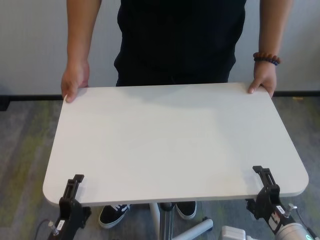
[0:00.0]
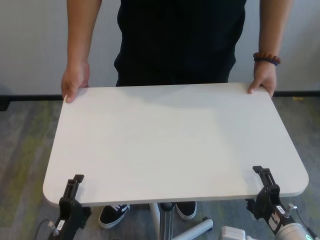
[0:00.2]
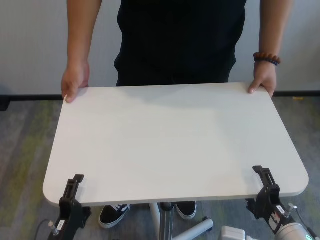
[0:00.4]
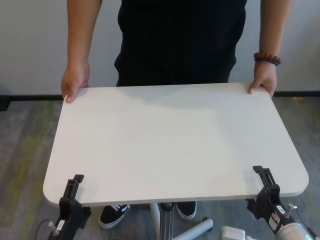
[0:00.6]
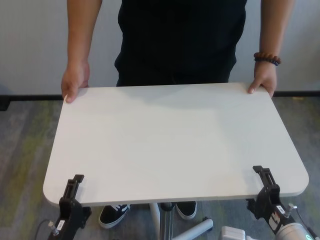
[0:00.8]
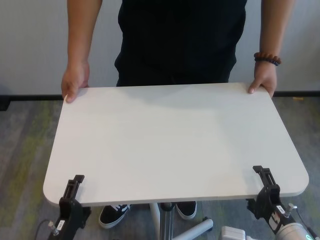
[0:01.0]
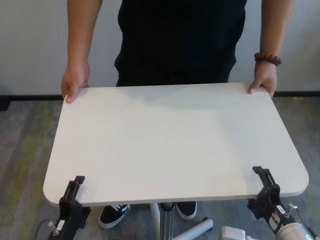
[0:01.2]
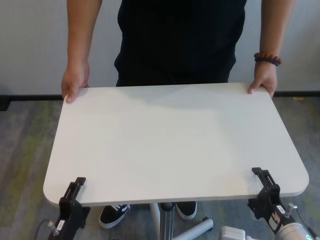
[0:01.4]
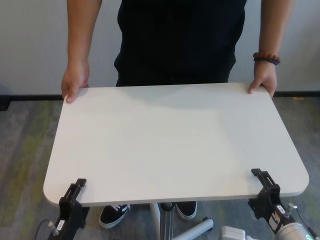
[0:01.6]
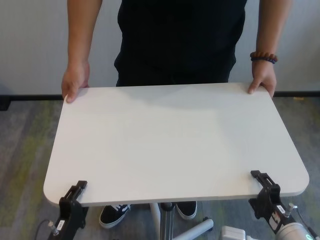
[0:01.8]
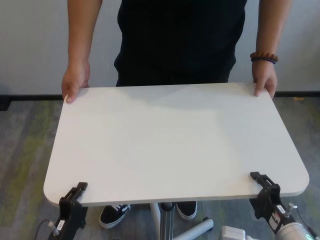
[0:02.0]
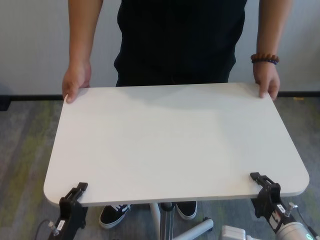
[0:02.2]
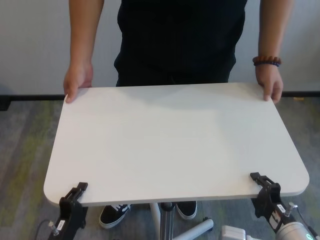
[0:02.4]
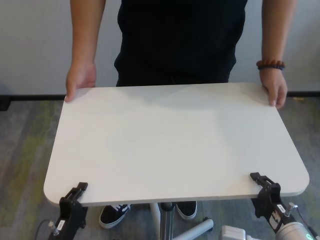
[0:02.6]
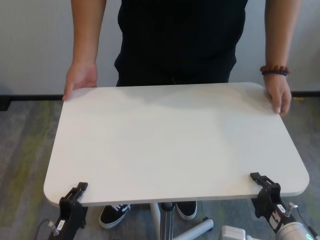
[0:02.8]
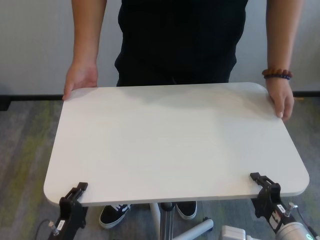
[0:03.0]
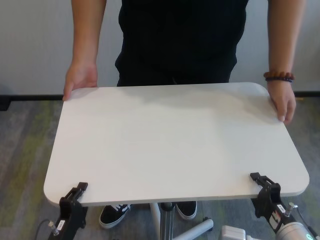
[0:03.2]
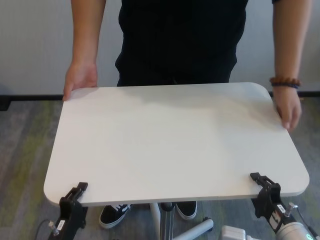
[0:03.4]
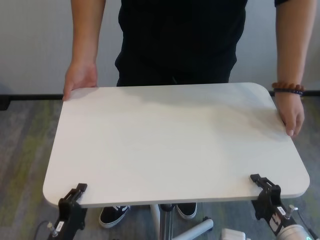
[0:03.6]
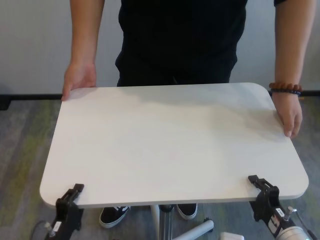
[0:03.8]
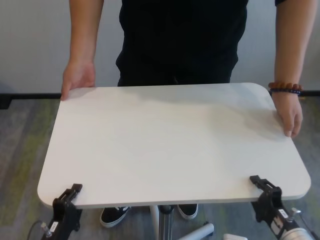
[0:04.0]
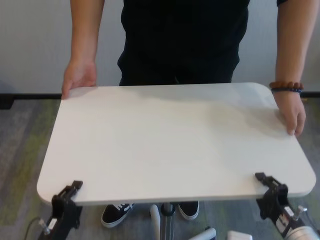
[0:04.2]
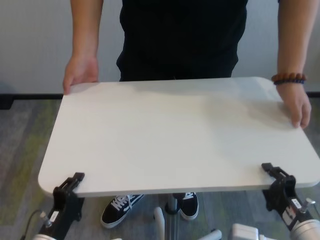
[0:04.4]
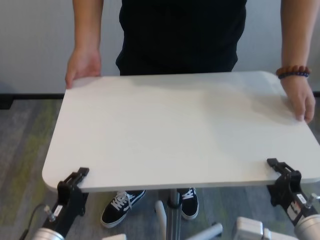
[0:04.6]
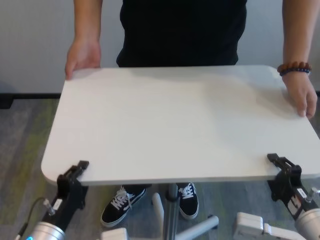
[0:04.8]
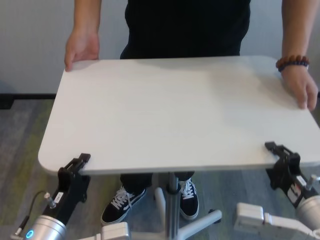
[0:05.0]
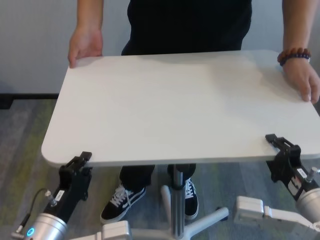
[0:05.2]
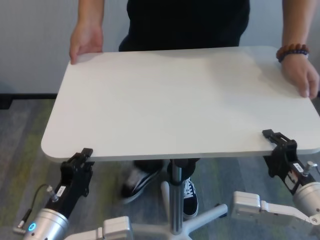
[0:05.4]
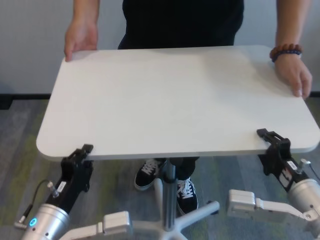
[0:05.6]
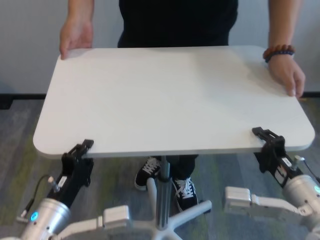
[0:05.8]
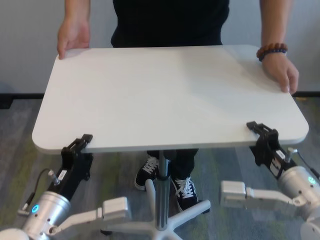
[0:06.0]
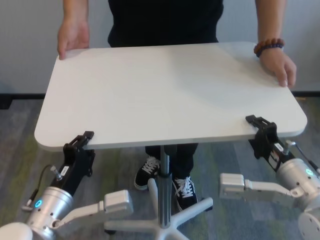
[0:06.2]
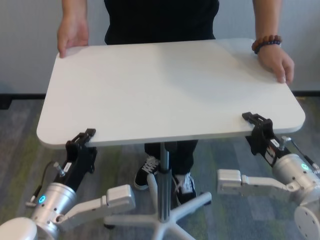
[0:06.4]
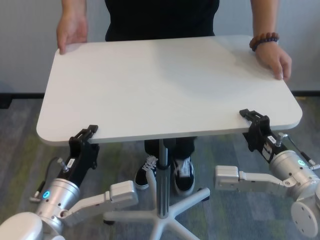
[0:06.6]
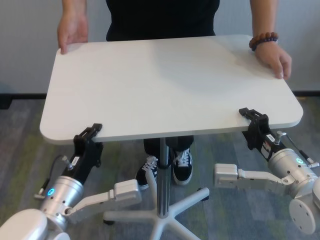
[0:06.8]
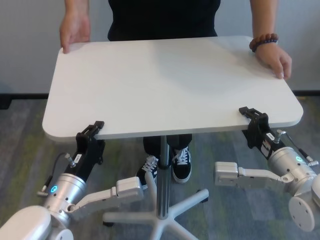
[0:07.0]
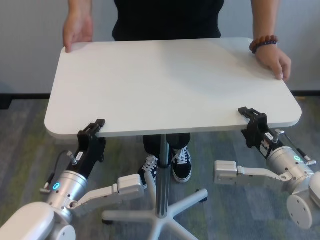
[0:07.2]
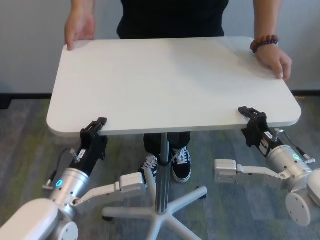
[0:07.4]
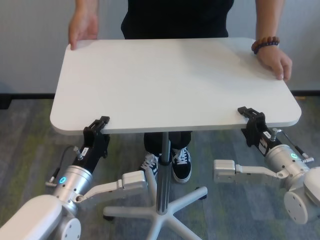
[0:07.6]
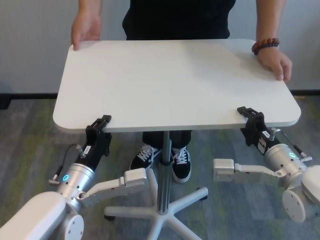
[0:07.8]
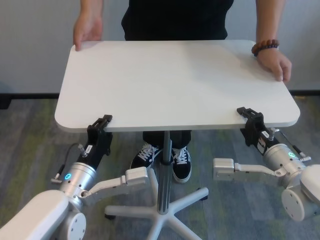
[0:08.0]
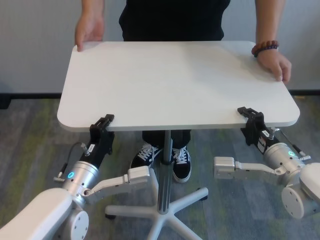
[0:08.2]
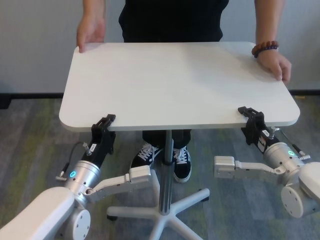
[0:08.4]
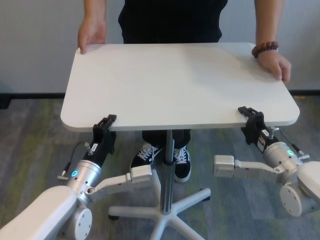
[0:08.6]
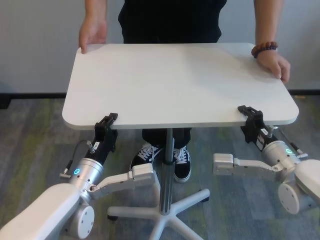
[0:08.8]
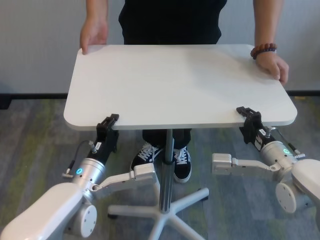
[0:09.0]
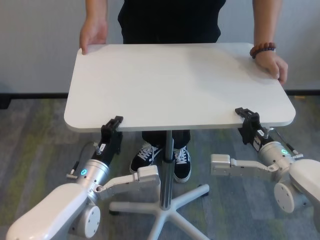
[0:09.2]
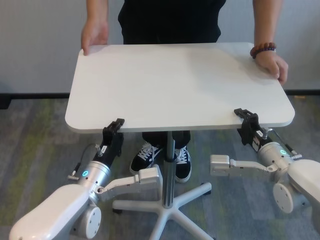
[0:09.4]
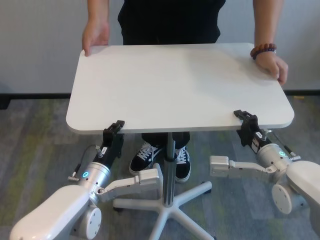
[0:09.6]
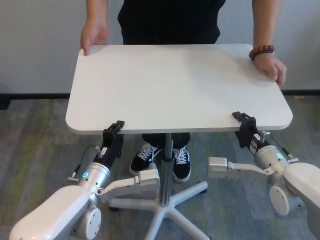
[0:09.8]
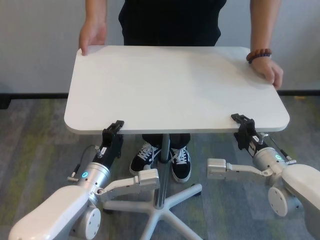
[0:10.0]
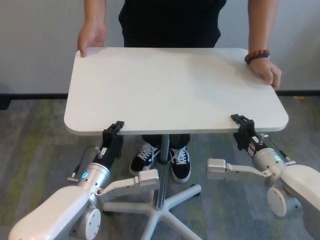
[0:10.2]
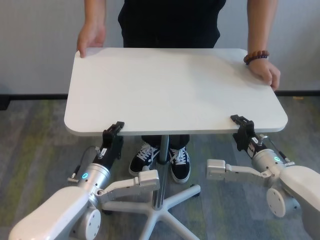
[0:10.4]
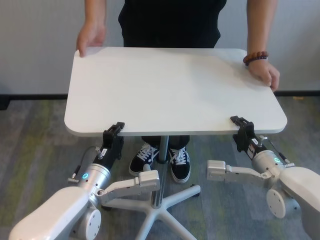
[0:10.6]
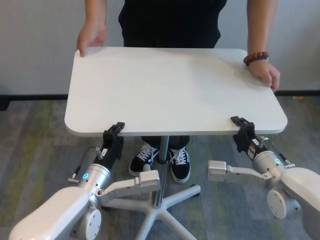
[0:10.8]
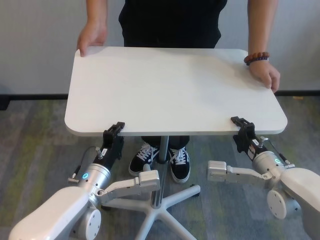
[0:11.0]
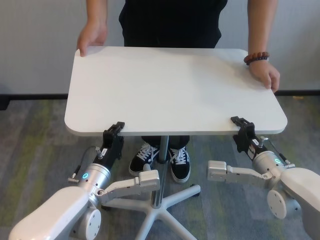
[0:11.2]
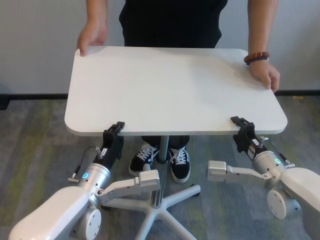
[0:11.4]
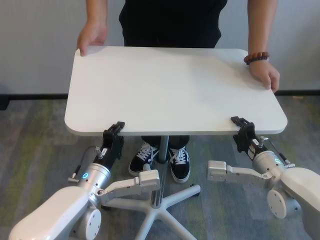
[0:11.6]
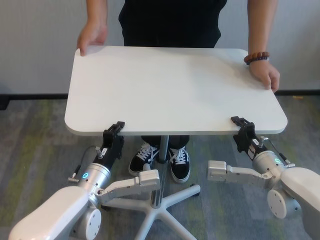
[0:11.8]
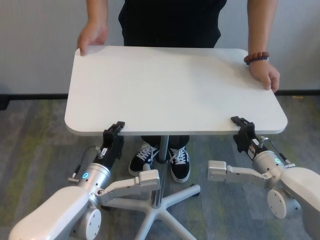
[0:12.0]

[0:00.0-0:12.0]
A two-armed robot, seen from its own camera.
Task of the whole recording: human machine collaborative table moving.
Step, 0:00.0 to 0:03.4: Grasp the table with both grippers.

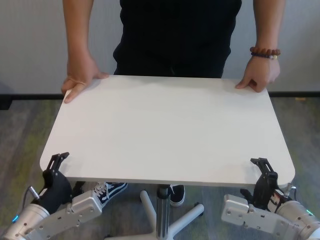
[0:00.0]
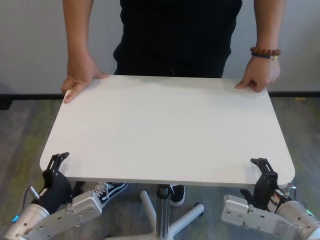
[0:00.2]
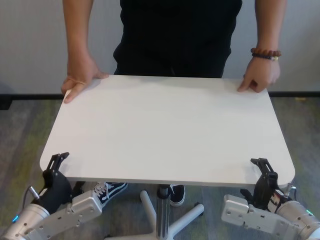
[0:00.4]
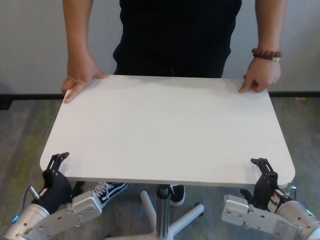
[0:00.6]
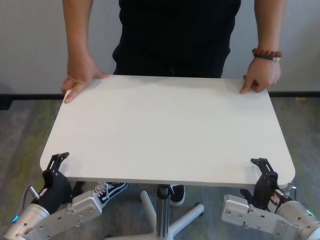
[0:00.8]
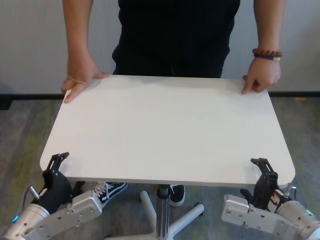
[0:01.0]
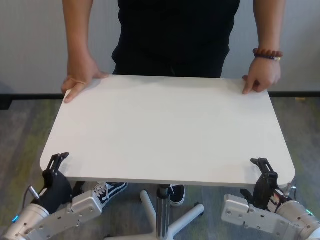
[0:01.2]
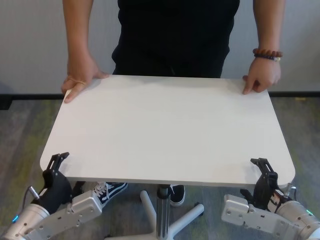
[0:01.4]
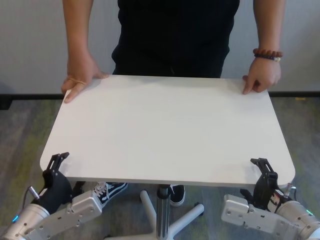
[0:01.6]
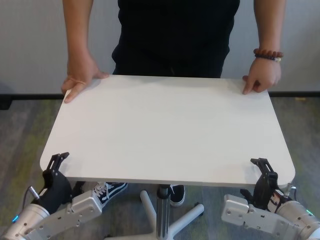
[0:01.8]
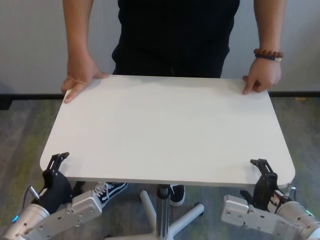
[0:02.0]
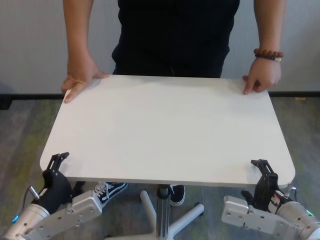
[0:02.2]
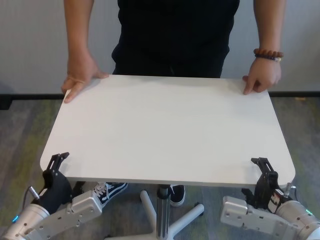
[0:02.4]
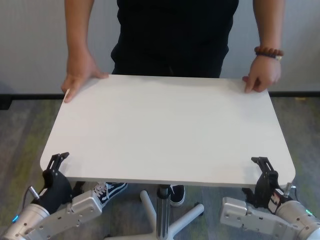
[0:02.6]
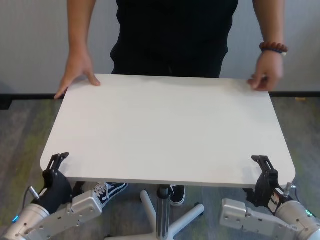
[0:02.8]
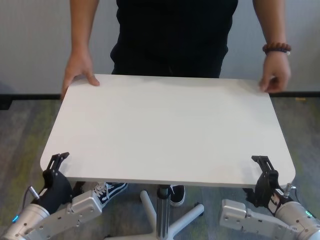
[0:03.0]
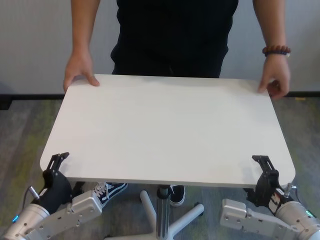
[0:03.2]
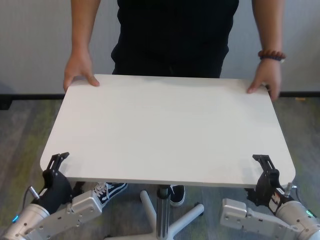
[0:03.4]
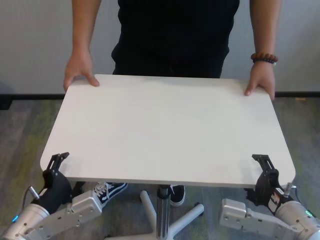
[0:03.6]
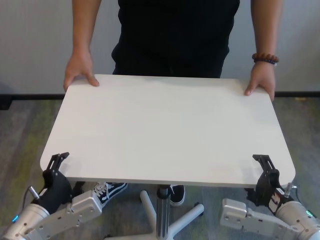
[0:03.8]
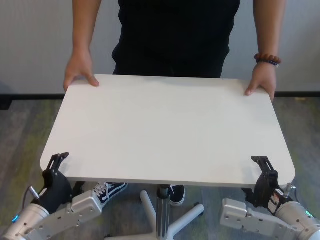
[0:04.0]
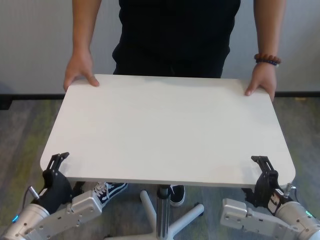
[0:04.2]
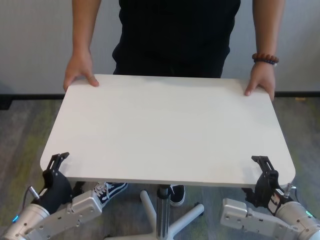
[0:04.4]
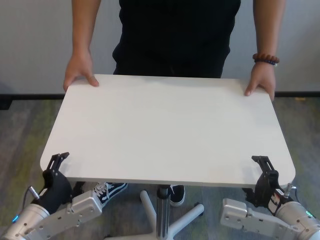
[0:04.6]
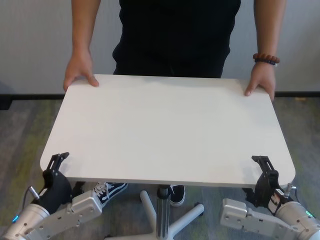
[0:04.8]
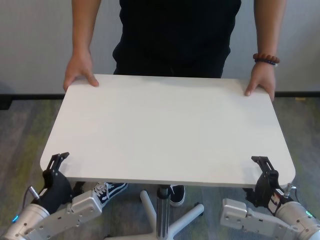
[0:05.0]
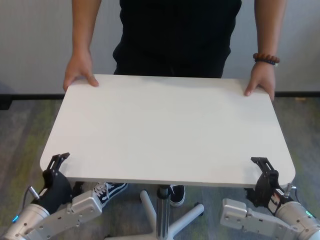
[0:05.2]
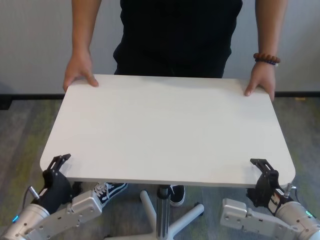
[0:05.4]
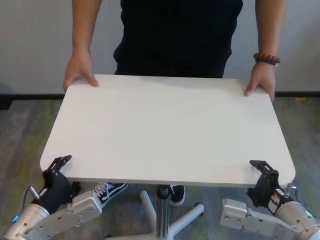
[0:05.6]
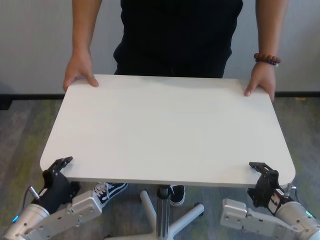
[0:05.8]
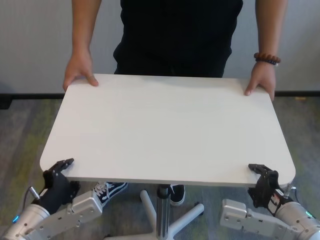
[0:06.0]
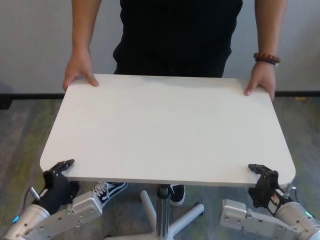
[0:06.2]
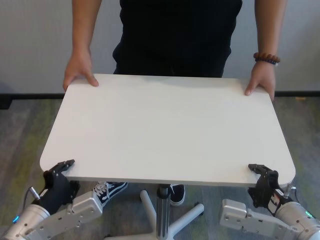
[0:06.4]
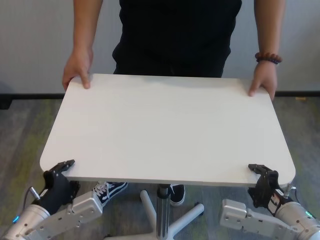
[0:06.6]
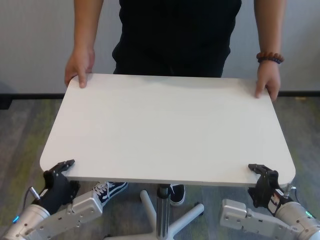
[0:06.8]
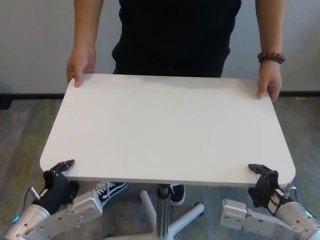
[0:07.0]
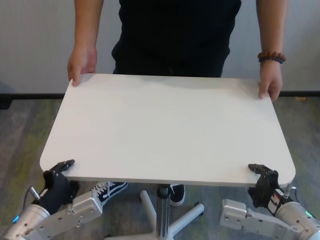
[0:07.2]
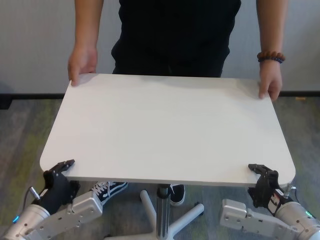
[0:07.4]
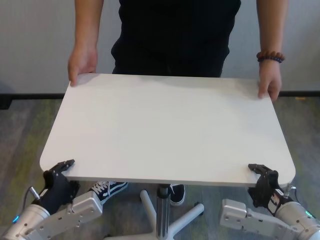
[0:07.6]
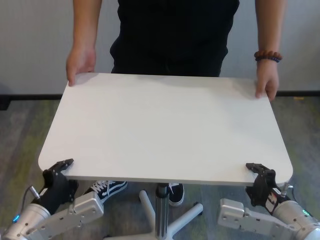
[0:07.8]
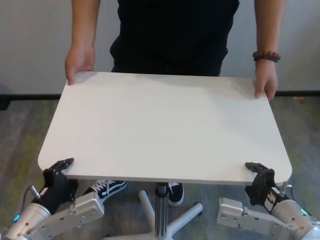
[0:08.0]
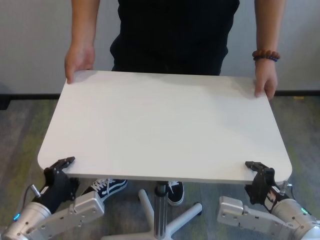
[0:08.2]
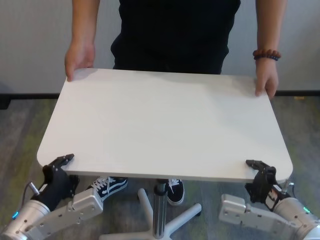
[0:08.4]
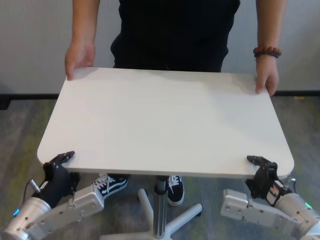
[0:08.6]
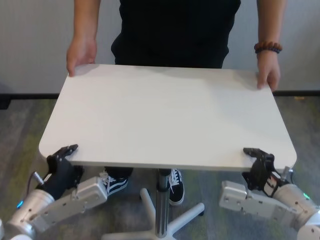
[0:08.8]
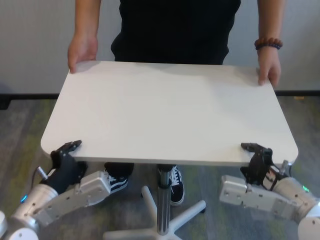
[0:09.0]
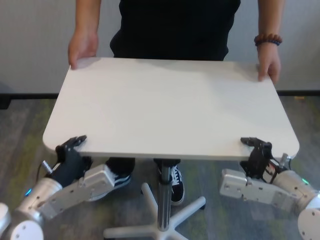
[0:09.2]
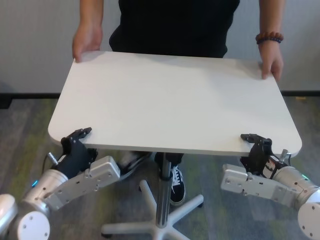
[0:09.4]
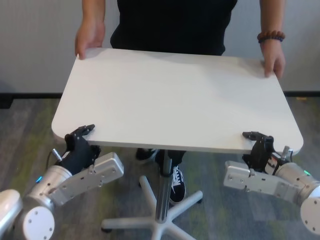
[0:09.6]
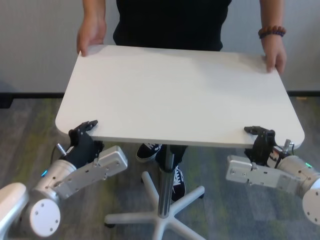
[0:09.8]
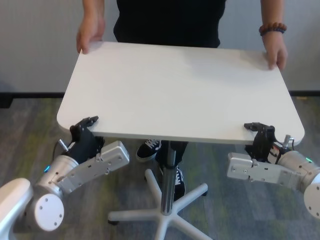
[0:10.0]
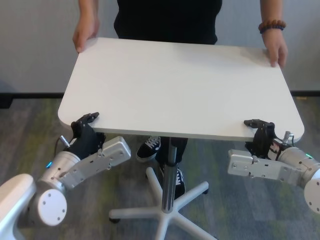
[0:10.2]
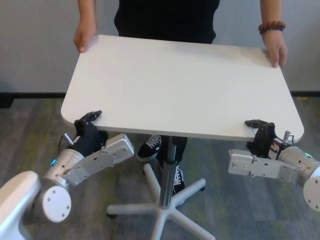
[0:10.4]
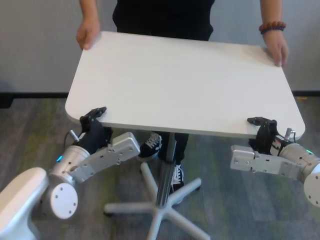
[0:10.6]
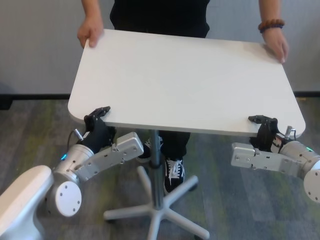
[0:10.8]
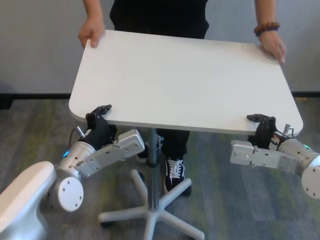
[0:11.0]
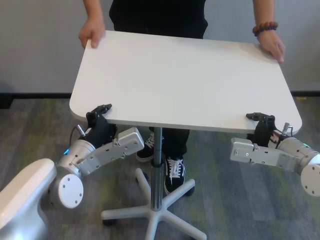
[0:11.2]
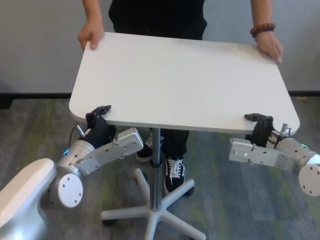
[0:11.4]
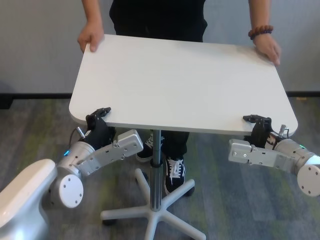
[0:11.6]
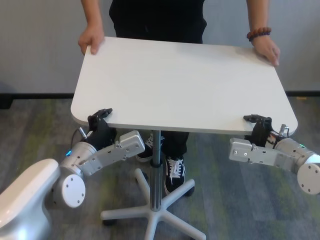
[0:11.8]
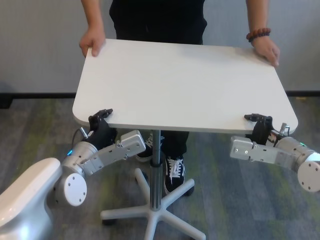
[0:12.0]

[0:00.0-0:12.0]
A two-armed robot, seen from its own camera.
Task of the whole recording: human machine collaborative table moving.
Step, 0:00.0 to 0:06.2: Grasp the table with both grippers.
